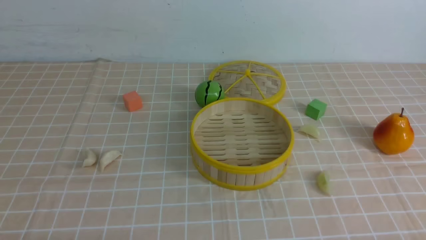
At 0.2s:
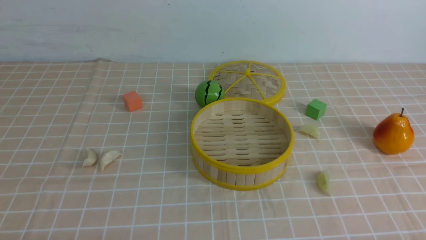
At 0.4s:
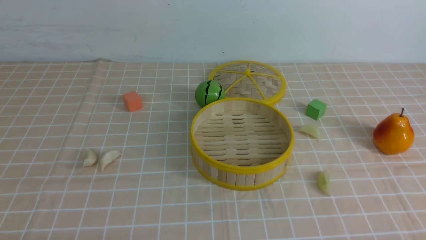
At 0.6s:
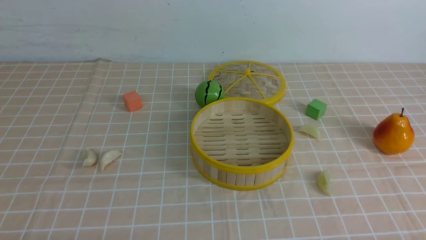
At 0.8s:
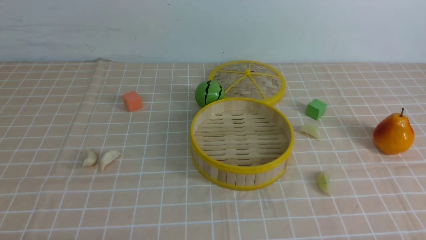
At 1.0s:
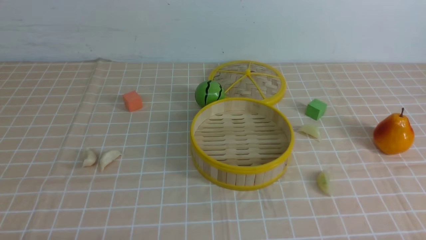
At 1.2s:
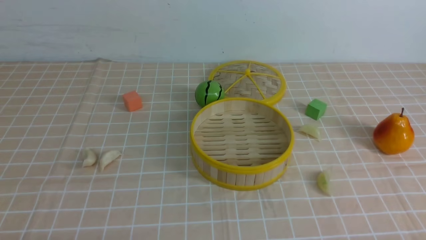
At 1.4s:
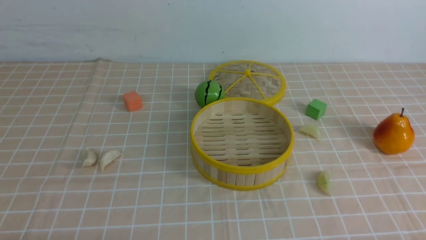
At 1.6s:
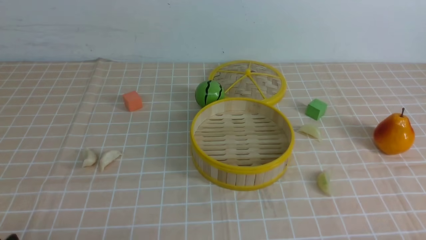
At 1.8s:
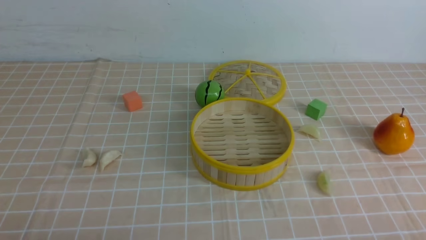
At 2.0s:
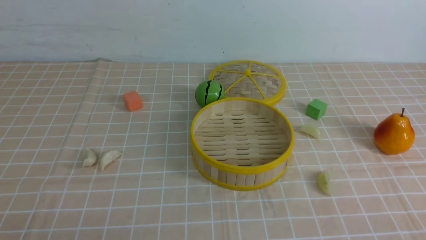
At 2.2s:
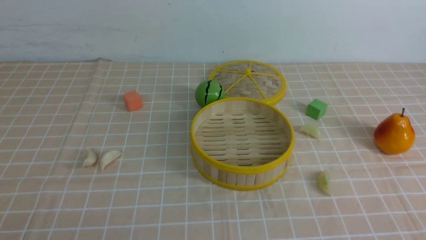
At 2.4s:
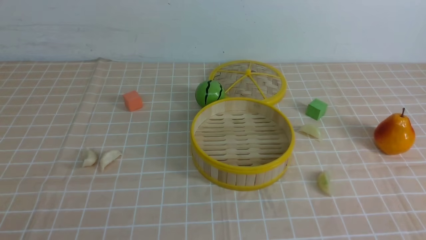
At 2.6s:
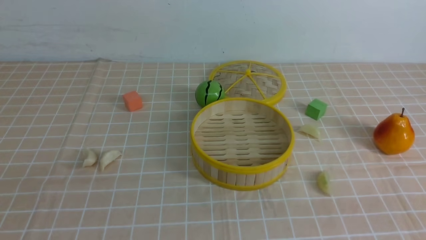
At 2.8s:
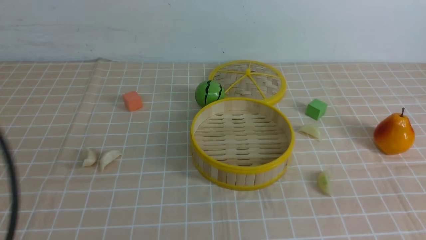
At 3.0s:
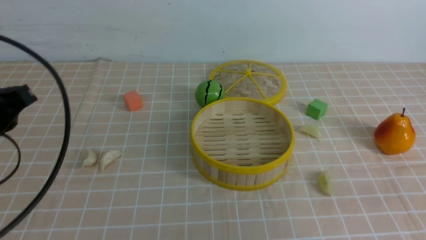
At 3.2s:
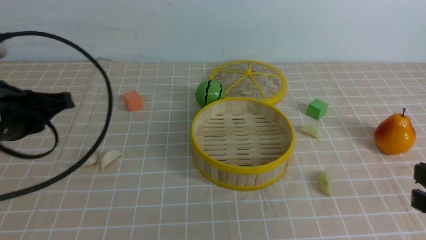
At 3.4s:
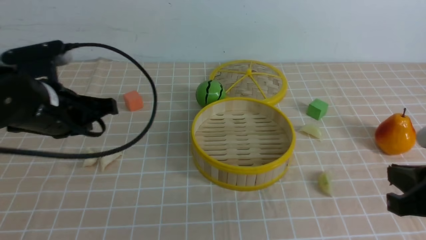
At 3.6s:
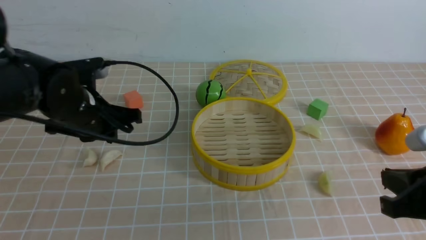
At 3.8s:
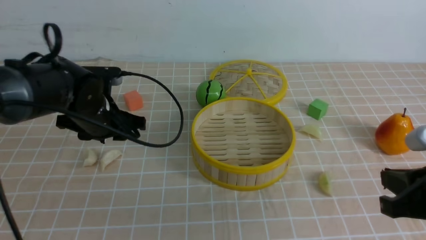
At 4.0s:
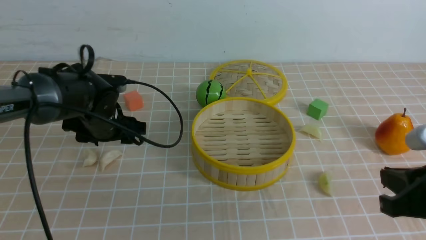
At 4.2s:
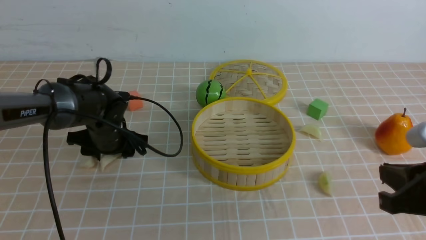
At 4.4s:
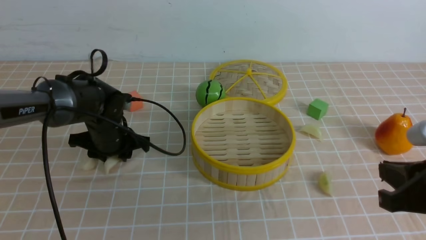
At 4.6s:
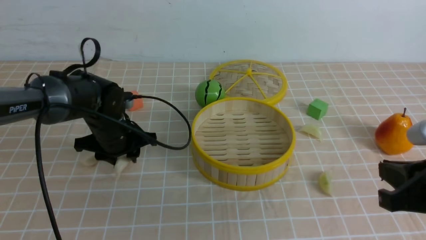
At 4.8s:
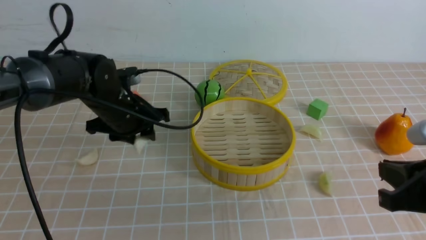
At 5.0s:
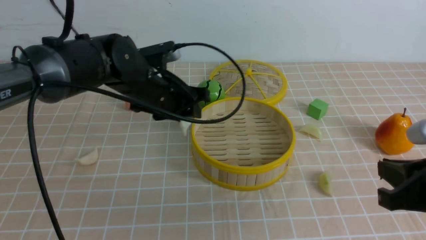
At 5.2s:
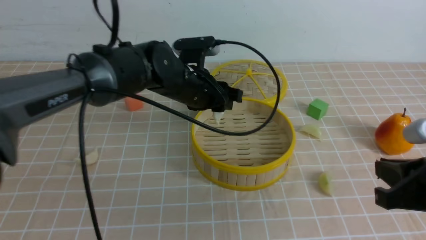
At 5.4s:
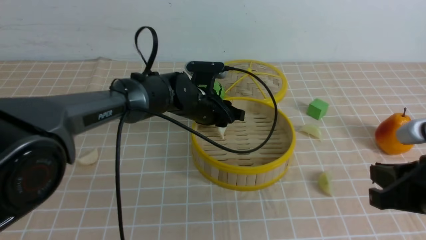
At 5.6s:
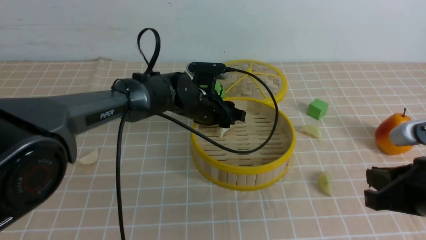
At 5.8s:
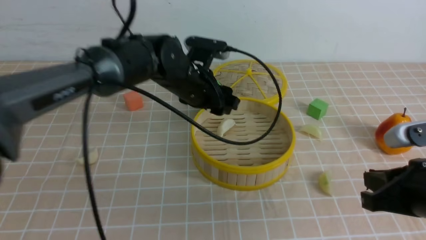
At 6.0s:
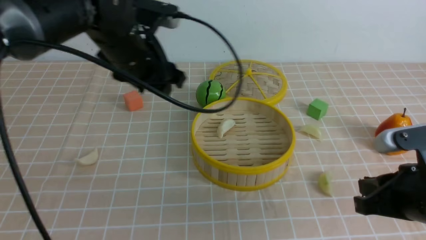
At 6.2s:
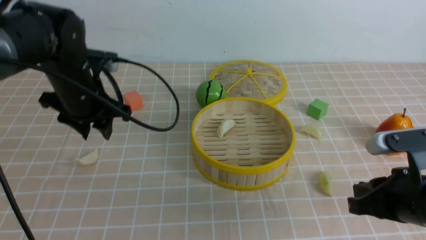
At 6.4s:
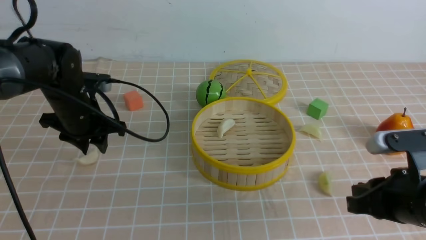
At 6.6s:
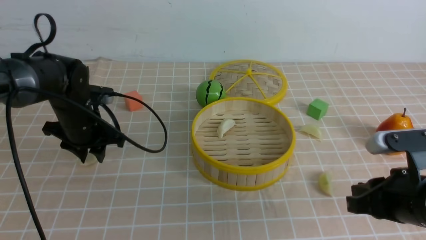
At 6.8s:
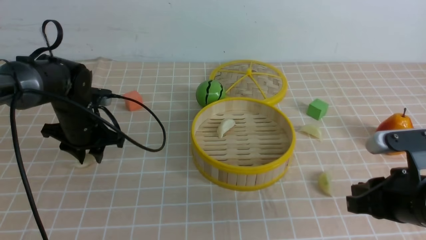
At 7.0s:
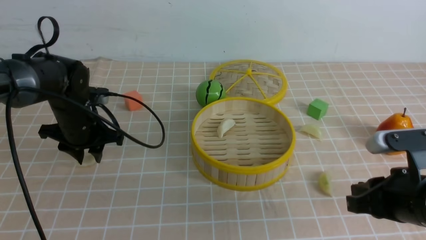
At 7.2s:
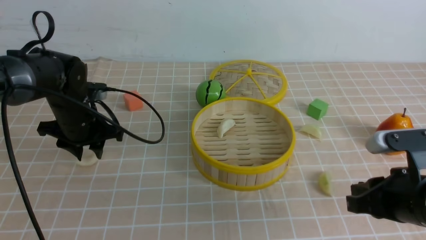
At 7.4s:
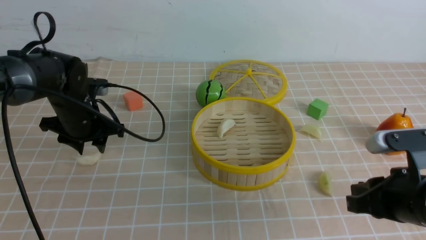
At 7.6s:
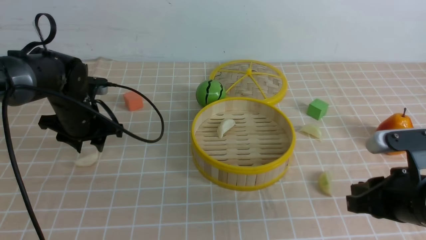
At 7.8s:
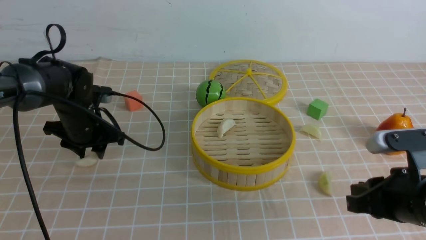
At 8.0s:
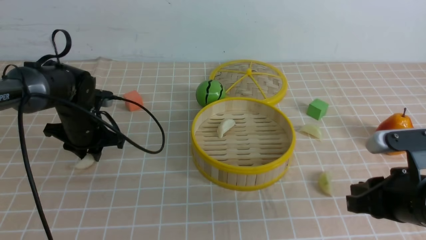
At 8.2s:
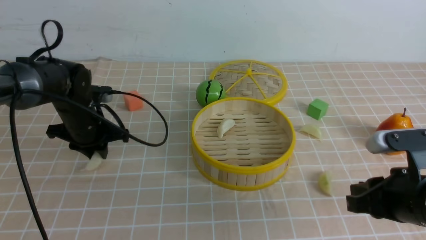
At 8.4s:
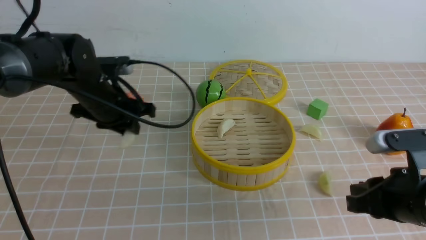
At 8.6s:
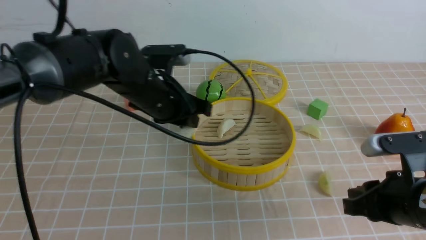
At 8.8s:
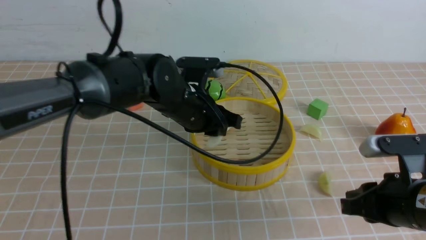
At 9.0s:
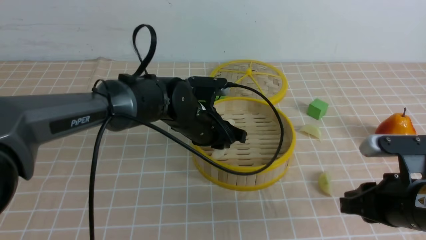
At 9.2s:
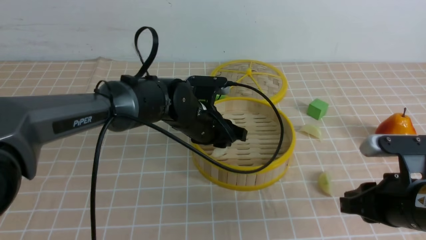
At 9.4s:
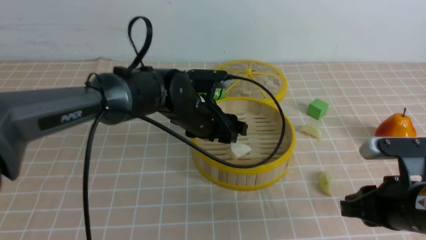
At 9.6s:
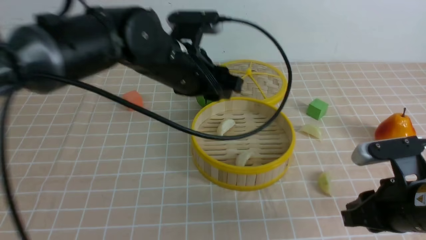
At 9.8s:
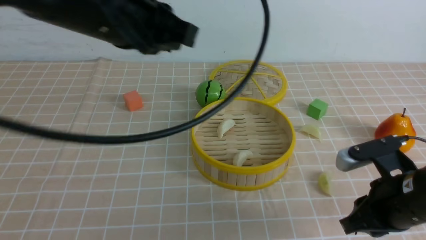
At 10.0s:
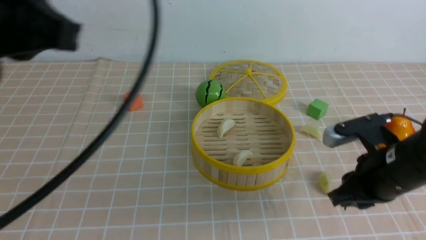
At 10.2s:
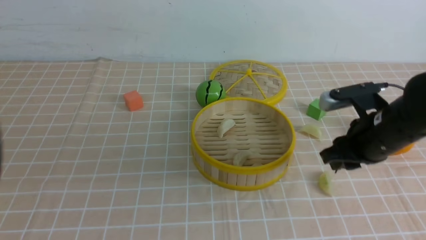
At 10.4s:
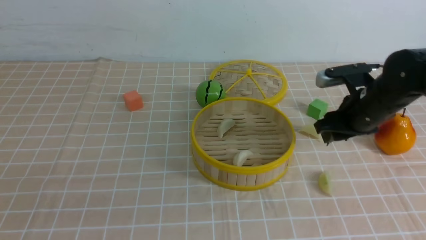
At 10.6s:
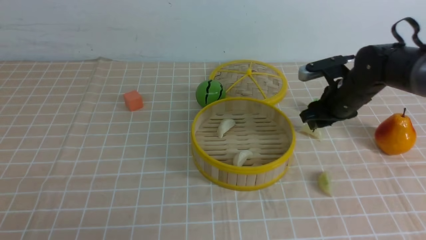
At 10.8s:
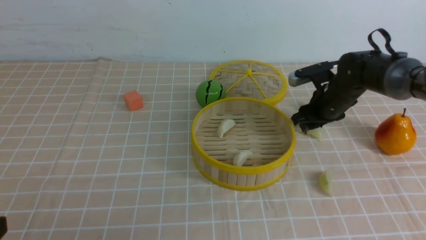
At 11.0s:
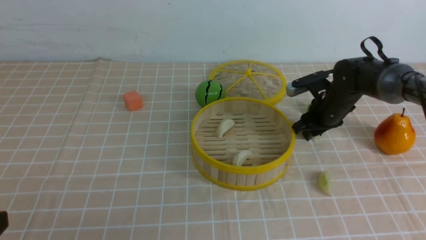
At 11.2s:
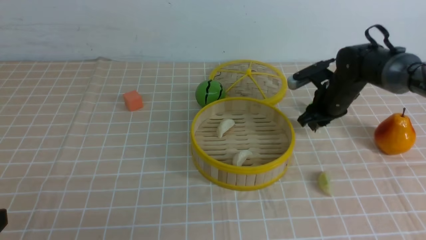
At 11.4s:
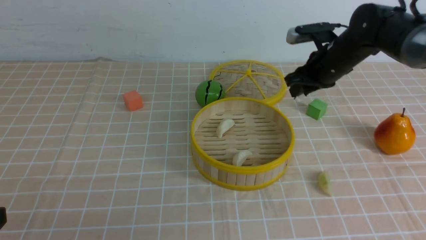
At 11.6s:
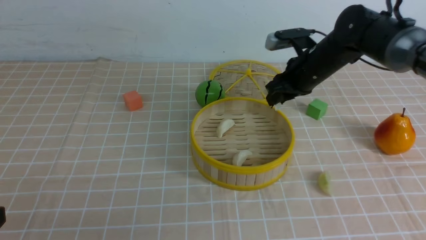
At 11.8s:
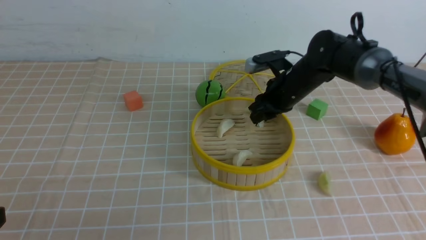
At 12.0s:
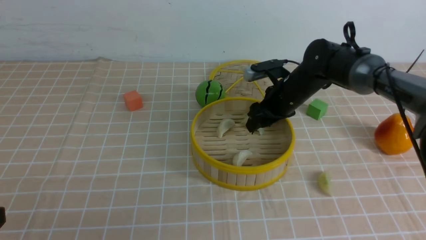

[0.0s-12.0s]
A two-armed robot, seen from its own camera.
Task of the whole recording: put the dumplings into the steamer on the table with the brown tablecloth.
Step, 0.0s to 4.2s: use the left arm to grab a dumpling.
Step, 4.4s to 5.8s: use the left arm to put the dumpling into the steamer.
Step, 6.0s to 8.0s: use the left arm to grab a dumpling.
Step, 8.2s to 9.4s: use the left arm to put the dumpling into the steamer.
Step, 9.6s to 11.0s: use the right arm to grab a dumpling.
1.6s to 3.0s: The left gripper shifts some 20 cm forward and upward, and closes.
3.0s to 4.4s: The right gripper moves about 5 cm. Meanwhile the left gripper is displaced forward and downward by some 25 cm, and opens up.
4.4s to 6.0s: The left gripper goes about 15 cm upward, and travels to the right and back again, roughly 15 cm each way.
6.0s to 7.6s: The left gripper is displaced downward and to the left by approximately 15 cm.
7.6s to 9.0s: The left gripper is displaced to the right by roughly 20 cm, and closes up.
9.0s to 10.4s: The right gripper travels forward by some 20 cm, and opens up. The left gripper heads backward and to the left, covering roughly 40 cm, and closes its fingers.
10.4s to 12.0s: The left gripper moves downward, some 5 cm. Meanwhile the right gripper moves forward and to the left, about 10 cm.

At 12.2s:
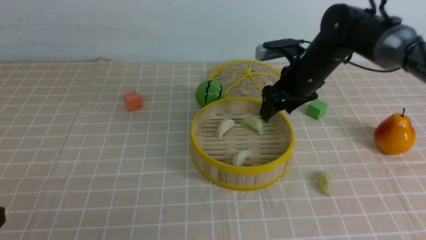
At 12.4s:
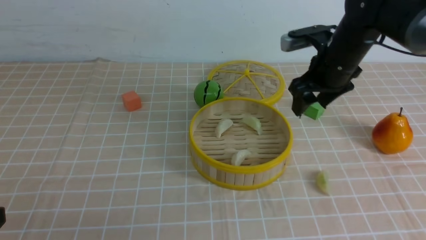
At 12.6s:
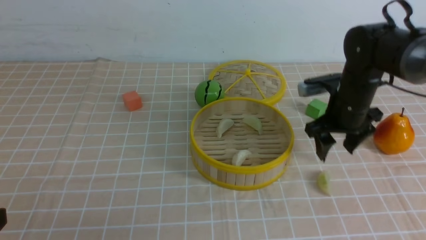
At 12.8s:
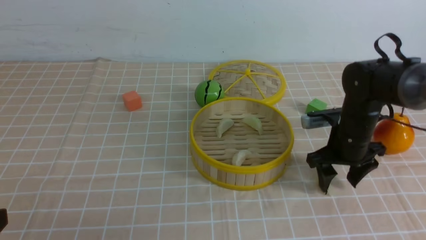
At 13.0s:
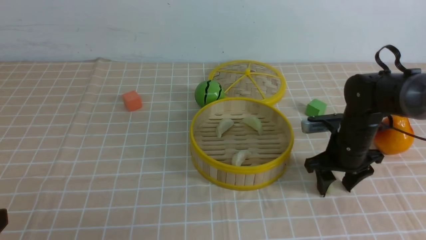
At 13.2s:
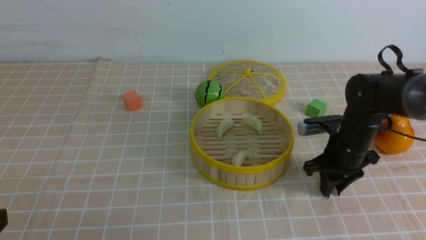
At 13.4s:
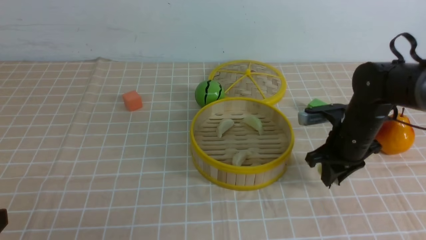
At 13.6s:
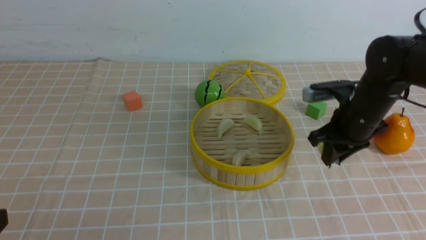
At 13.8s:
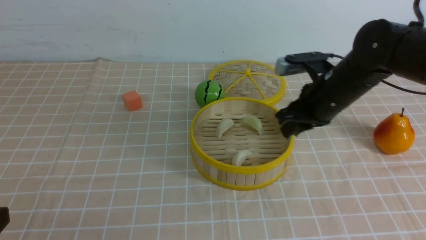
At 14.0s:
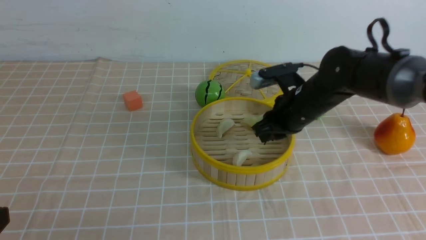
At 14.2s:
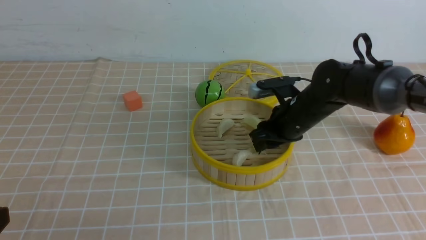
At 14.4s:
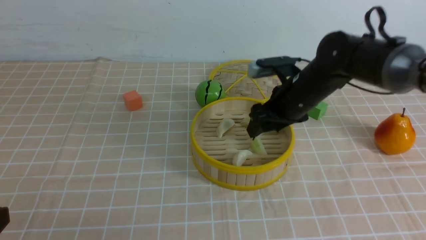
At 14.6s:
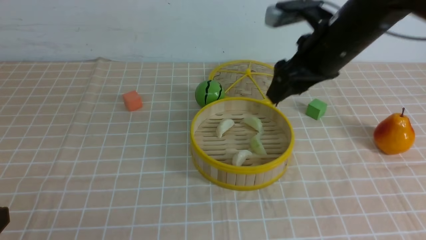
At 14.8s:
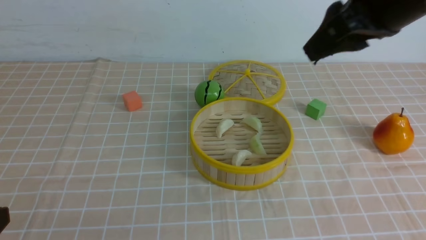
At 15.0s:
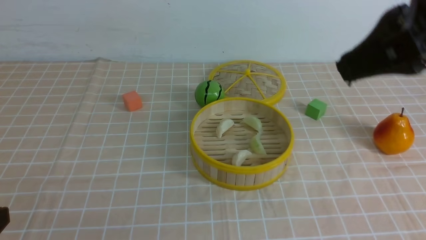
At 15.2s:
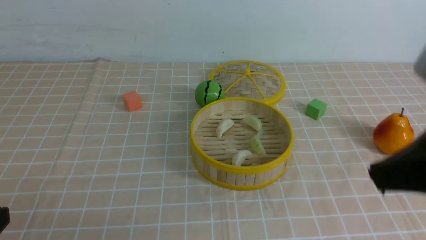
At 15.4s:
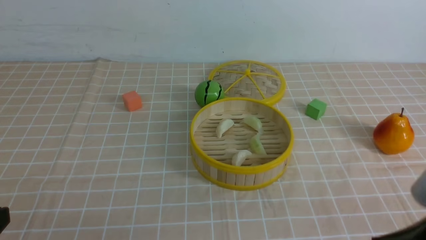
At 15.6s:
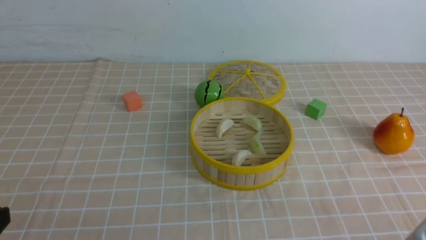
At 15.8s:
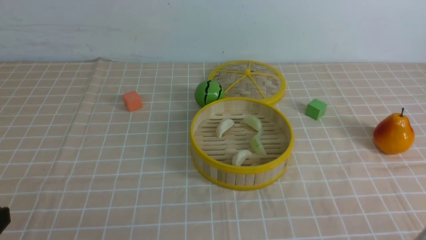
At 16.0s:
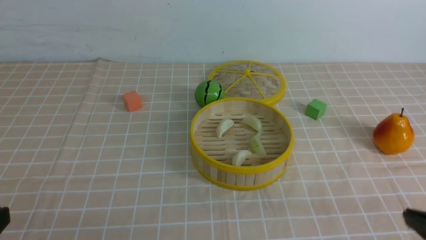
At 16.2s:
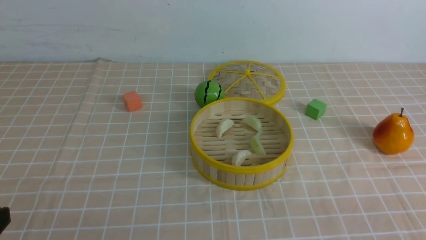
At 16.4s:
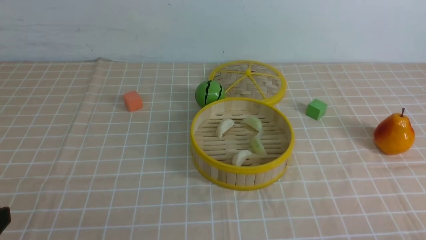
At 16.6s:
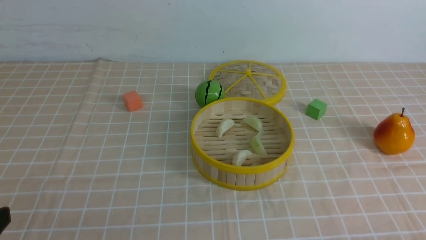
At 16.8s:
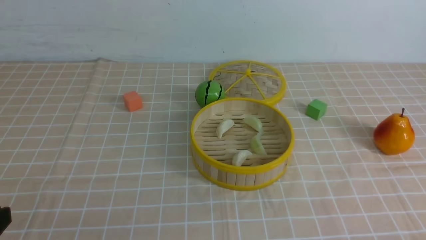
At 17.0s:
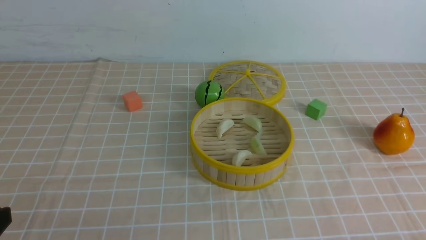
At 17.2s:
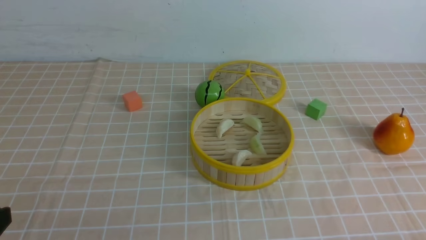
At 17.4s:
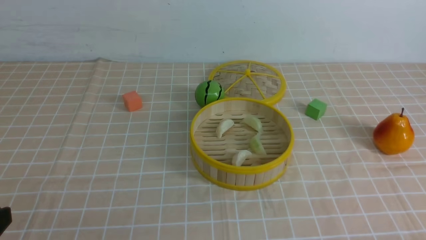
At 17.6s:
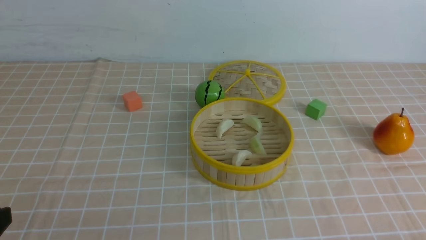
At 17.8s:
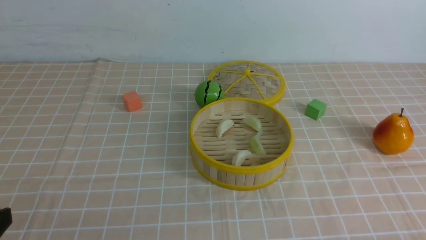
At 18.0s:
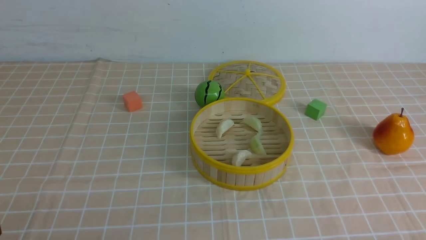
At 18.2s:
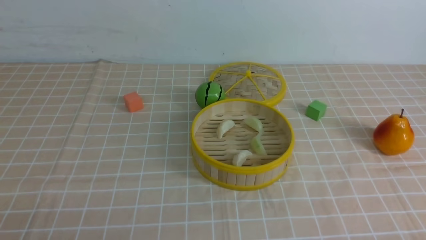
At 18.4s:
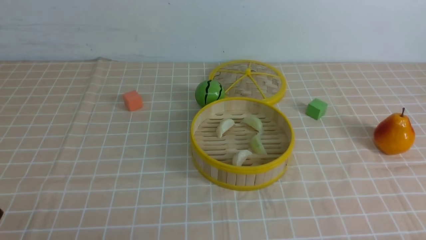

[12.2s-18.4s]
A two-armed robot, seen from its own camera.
Task of the whole recording: put the dumplings into the steamer on the table with the brown tablecloth.
Step, 12.4s to 13.2s: use the right arm to grab a dumpling.
Step, 13.4s to 14.4s: use the right arm to put the dumpling into the steamer.
12.2s to 13.8s: The right gripper goes some 5 cm backward, travels downward and back again, some 10 cm each way, and closes.
13.8s to 15.4s: The right gripper travels backward by about 25 cm, and opens, then closes again.
15.4s to 16.8s: The right gripper travels downward, to the right and backward by approximately 15 cm.
